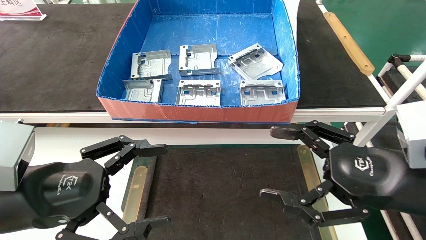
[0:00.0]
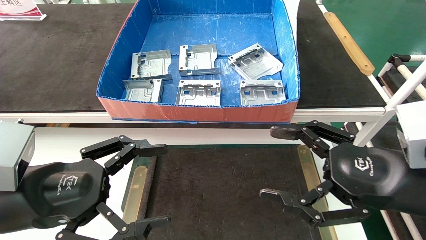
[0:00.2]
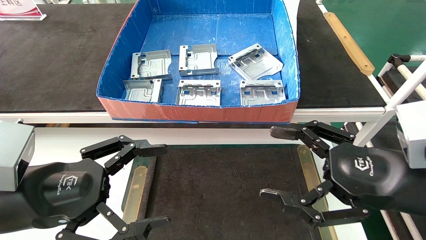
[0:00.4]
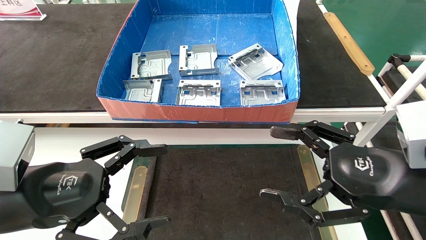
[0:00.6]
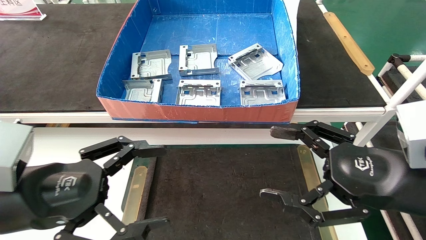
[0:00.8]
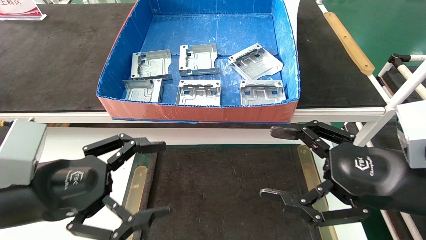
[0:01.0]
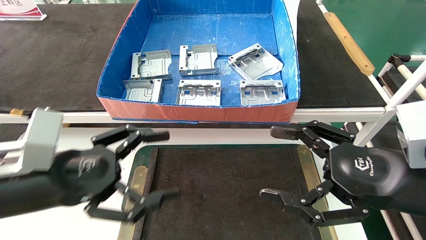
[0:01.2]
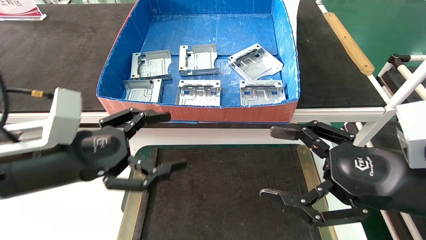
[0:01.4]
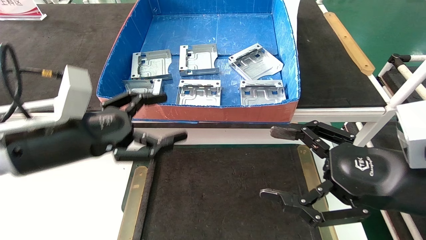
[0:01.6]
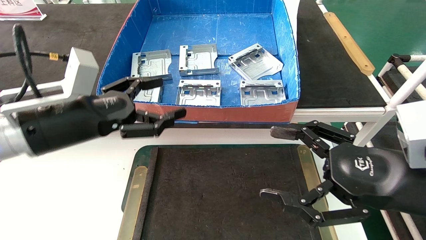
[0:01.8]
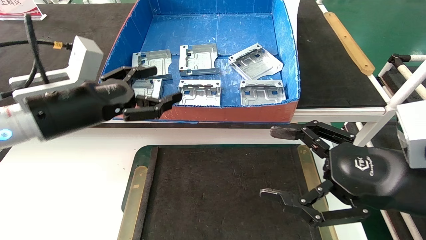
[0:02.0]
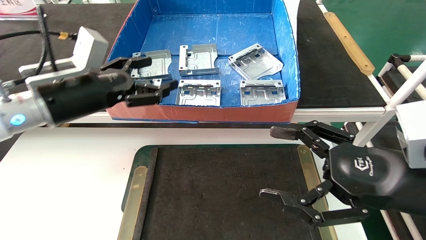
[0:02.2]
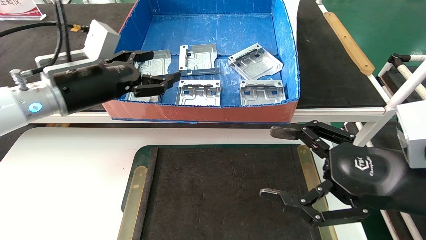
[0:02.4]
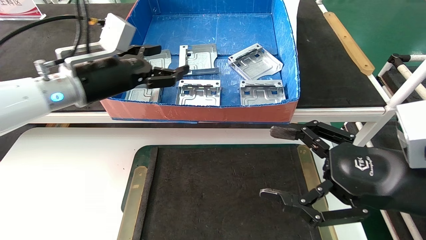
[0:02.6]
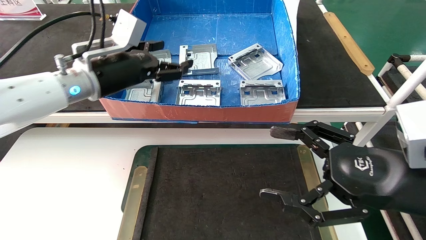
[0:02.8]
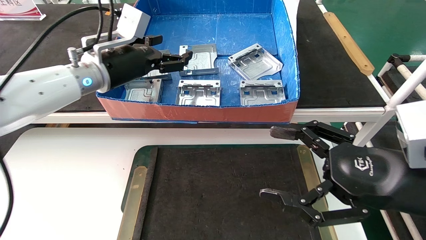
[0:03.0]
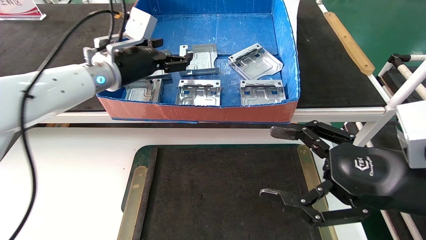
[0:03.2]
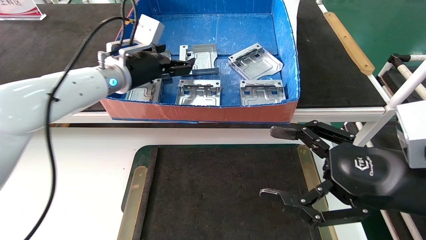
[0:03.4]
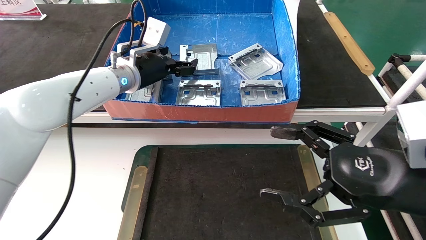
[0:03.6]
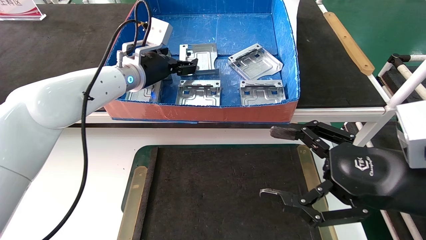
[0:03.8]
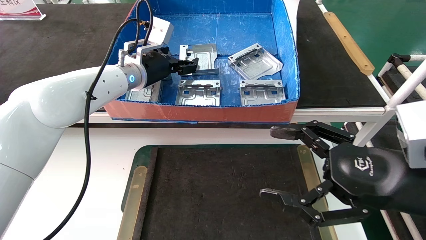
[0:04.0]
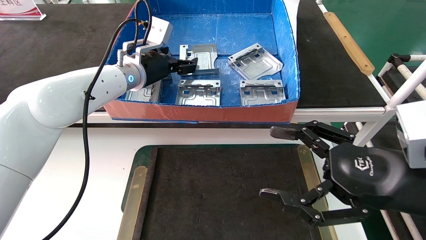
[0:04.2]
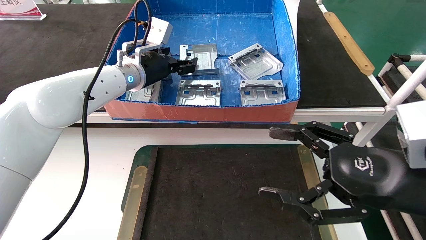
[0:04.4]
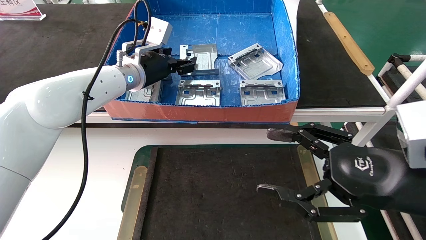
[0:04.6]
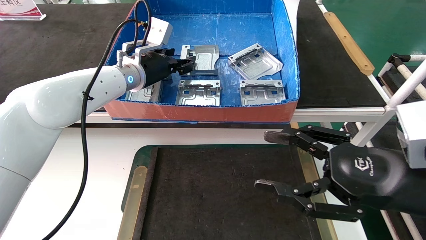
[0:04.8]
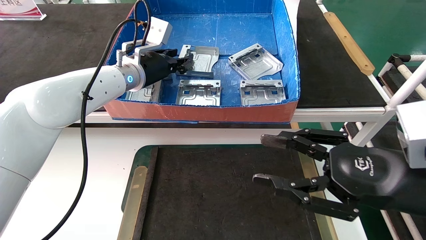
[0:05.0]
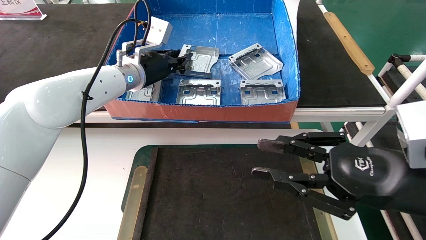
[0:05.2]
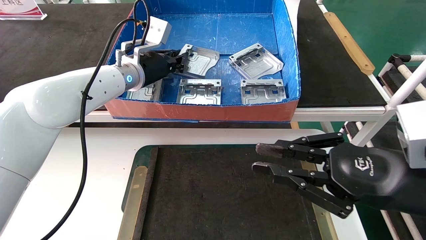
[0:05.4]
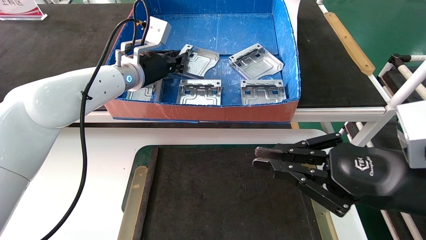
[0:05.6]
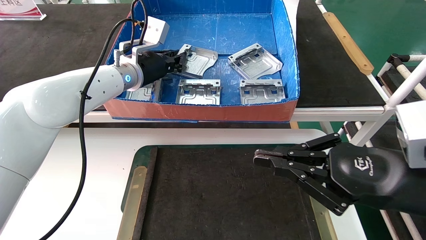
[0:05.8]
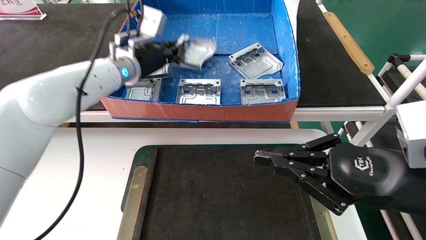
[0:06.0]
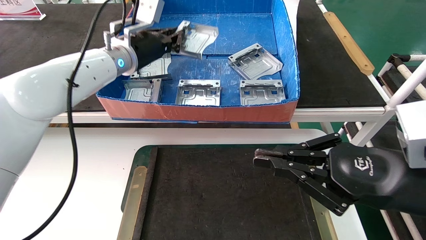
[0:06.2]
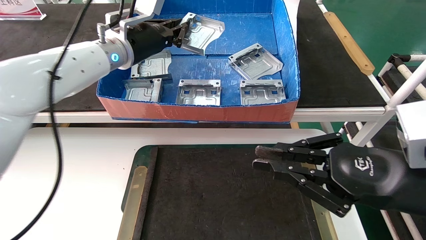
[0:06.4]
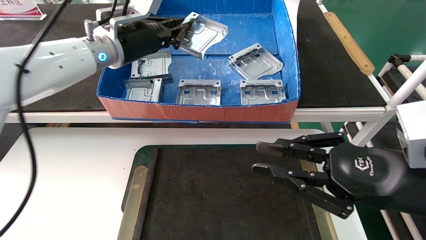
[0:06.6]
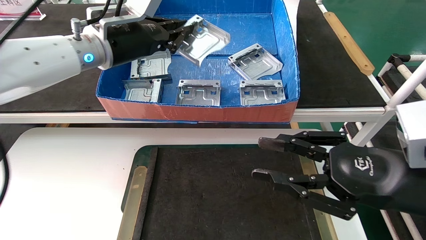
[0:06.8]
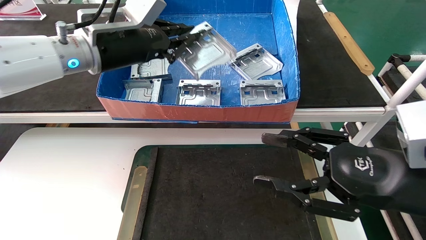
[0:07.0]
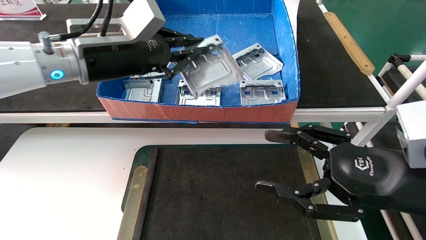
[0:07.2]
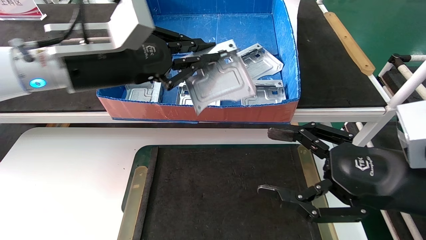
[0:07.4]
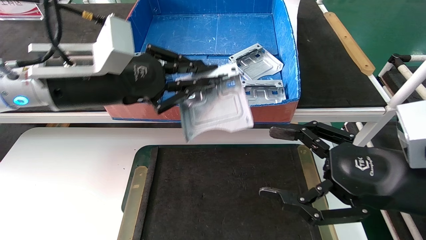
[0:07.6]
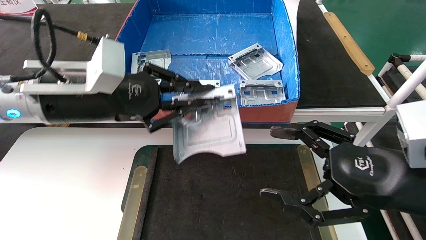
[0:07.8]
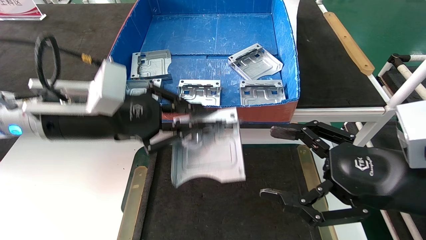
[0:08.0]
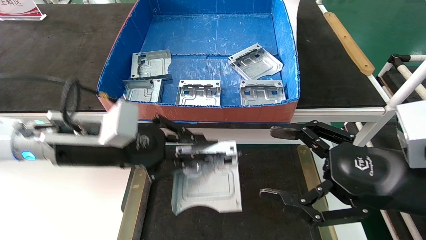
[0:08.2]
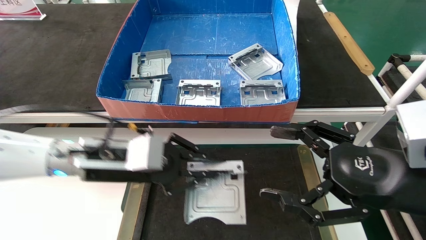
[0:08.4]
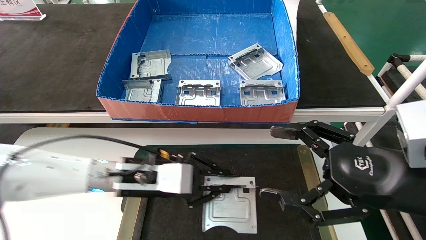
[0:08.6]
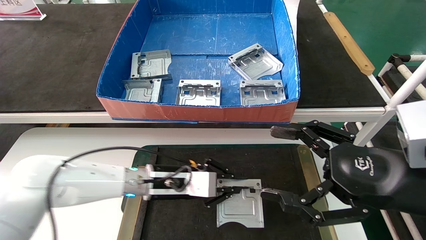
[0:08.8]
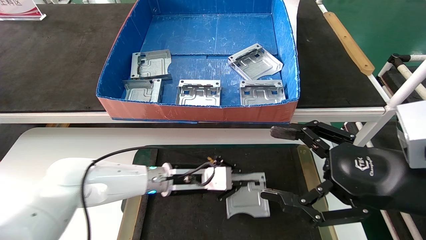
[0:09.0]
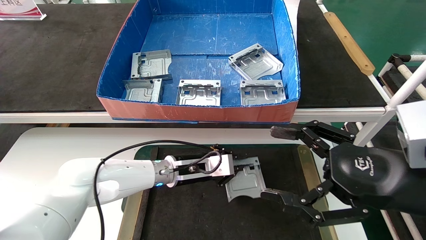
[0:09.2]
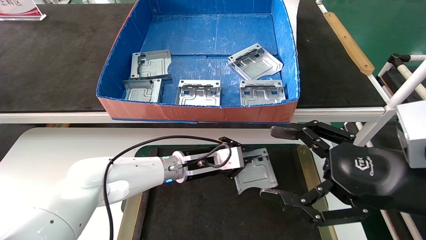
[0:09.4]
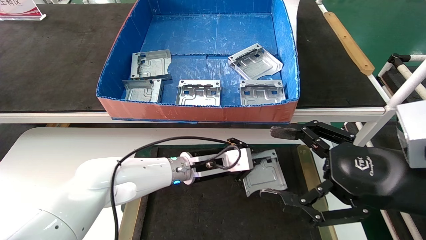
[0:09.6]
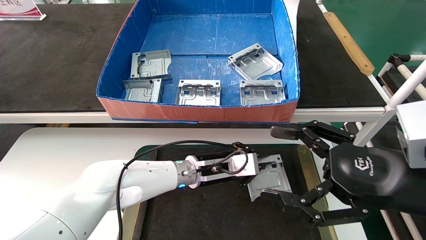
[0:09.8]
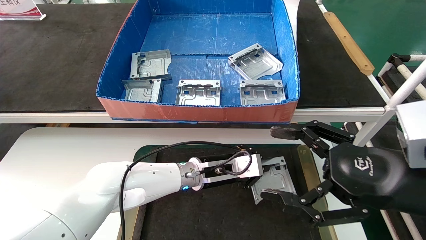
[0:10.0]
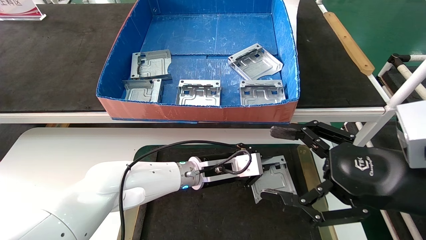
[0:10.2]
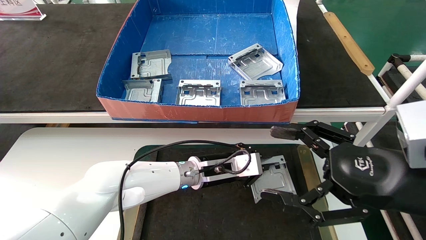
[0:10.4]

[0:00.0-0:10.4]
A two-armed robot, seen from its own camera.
Task of the whole recording: take the accessories out of the box and place them on the table.
Step, 0:01.0 to 0:05.4: Pick up the hard drive bracket from the feeding area.
0:00.0 to 0:01.4: The left gripper shifts about 5 cm forward.
0:01.4 to 0:03.0: The left gripper travels forward and upward by about 20 cm.
0:03.0 to 0:04.4: The left gripper goes roughly 5 cm forward.
0:04.4 to 0:06.0: The left gripper closes its fingers. The right gripper closes up.
0:06.0 to 0:07.4: The right gripper opens up, while the left gripper moves backward, approximately 15 cm.
0:07.4 to 0:09.0: The left gripper goes about 25 cm downward, forward and to the right.
0:09.0 to 0:10.4: The left gripper goes about 5 cm to the right.

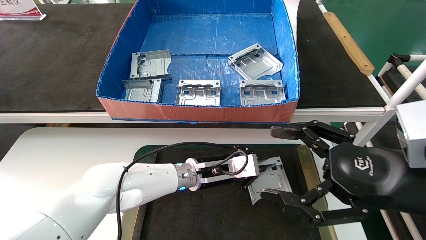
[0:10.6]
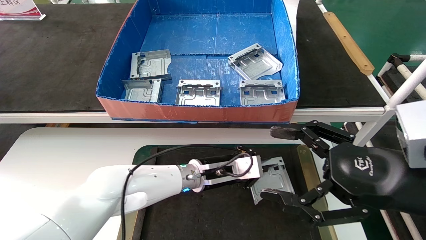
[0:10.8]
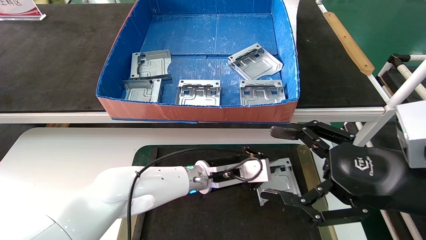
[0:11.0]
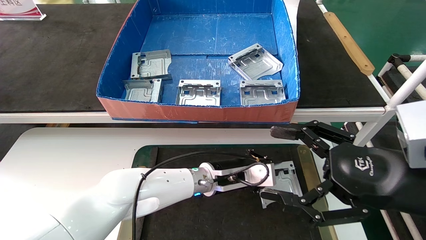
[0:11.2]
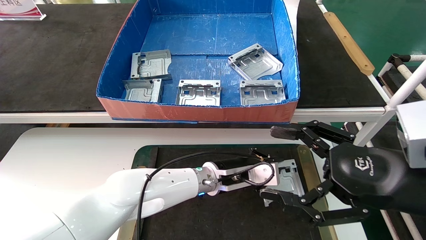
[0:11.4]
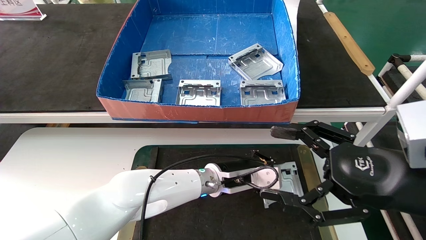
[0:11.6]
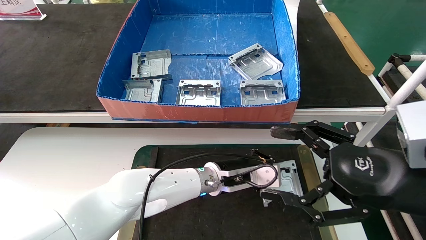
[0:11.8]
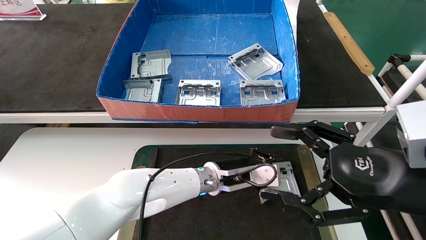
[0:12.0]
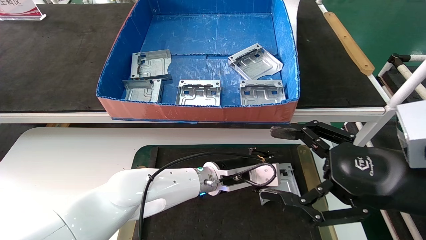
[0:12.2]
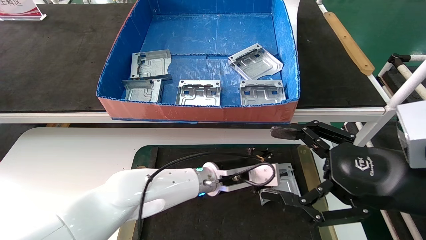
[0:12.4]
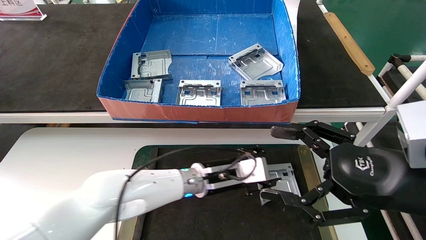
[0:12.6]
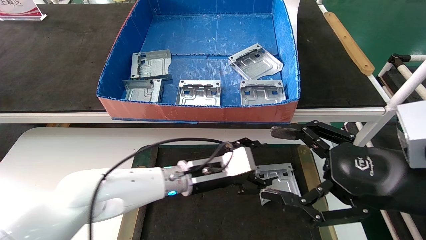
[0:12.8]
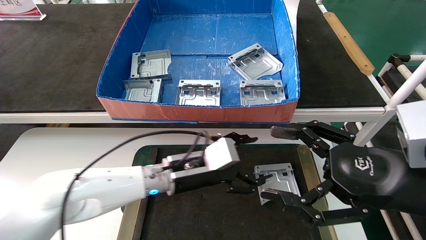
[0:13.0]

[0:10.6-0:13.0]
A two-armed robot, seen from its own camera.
Task of the whole recording: take the accessories out of the box and place them on the table.
0:10.6 to 0:11.8: The grippers stay close to where they were, moving slightly.
0:11.8 to 0:13.0: The left gripper heads to the left, covering about 10 cm, and opens.
